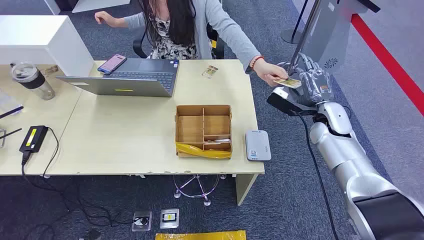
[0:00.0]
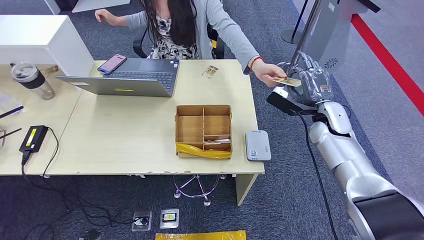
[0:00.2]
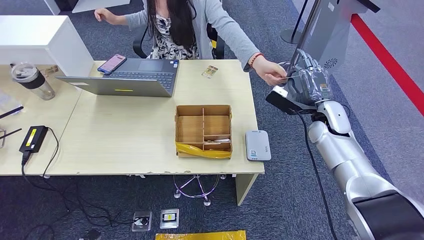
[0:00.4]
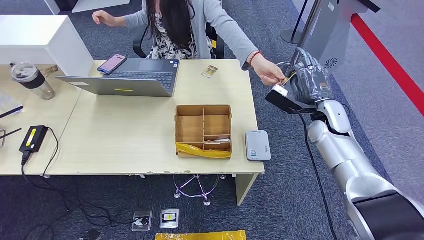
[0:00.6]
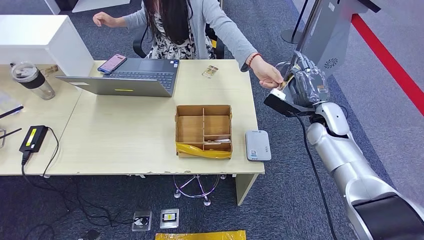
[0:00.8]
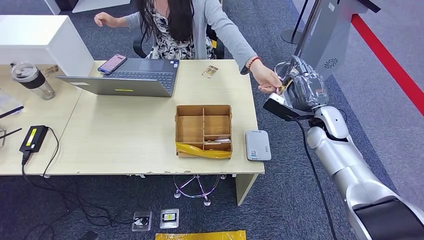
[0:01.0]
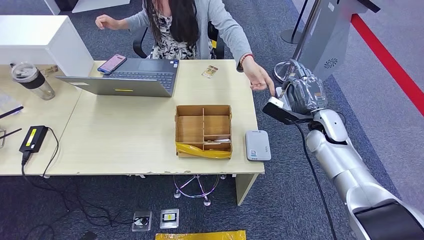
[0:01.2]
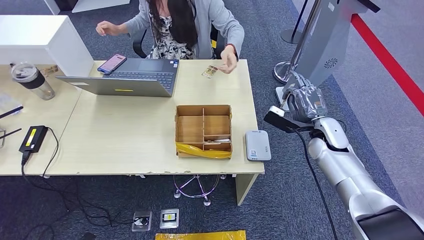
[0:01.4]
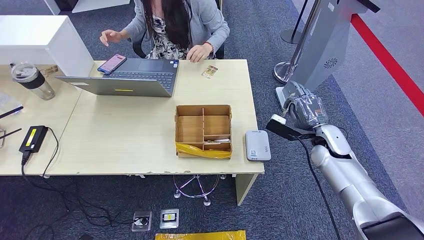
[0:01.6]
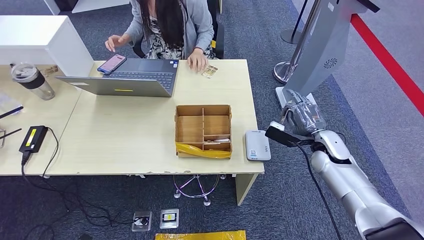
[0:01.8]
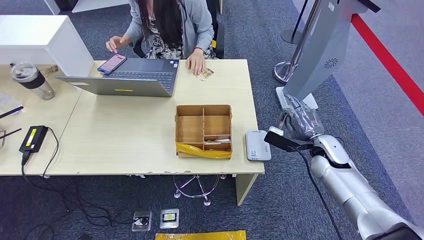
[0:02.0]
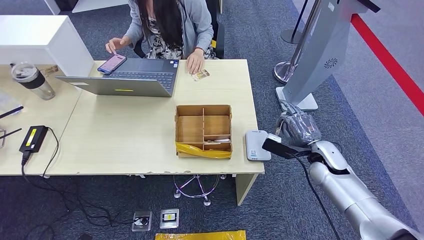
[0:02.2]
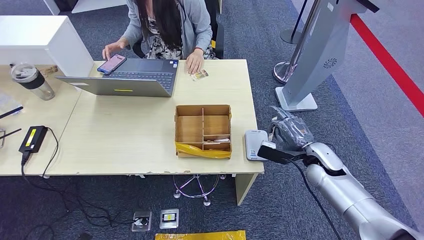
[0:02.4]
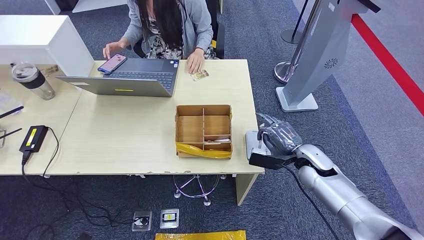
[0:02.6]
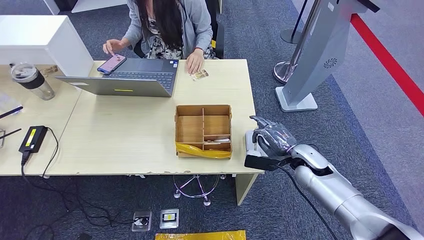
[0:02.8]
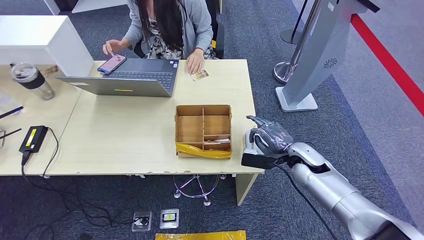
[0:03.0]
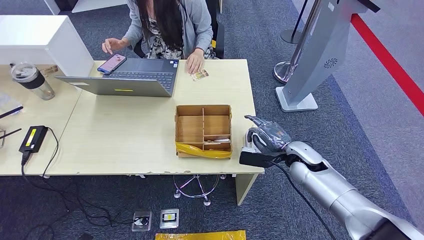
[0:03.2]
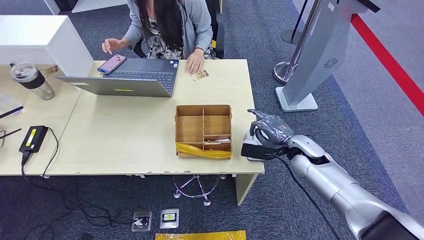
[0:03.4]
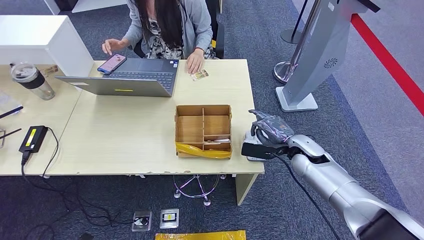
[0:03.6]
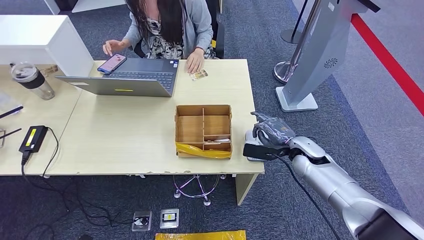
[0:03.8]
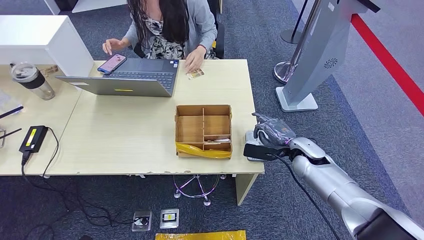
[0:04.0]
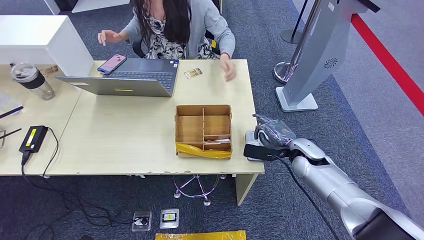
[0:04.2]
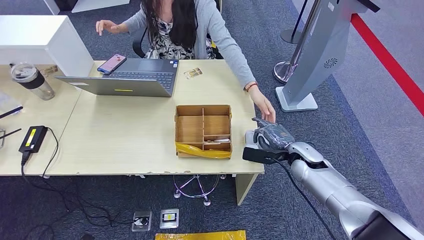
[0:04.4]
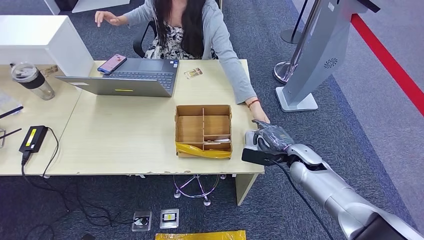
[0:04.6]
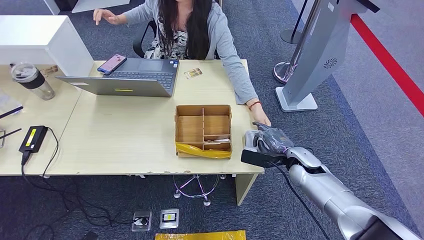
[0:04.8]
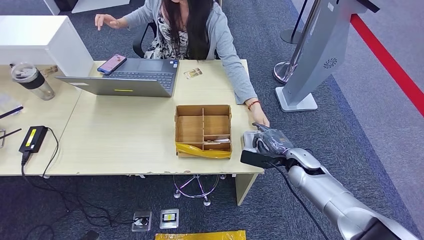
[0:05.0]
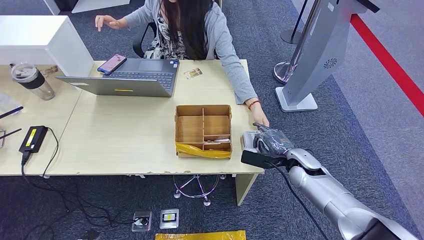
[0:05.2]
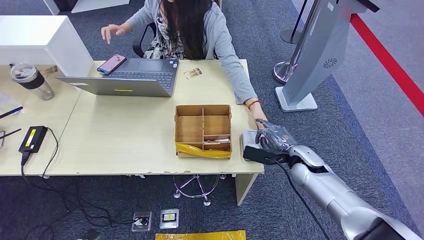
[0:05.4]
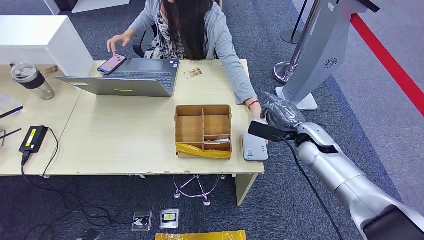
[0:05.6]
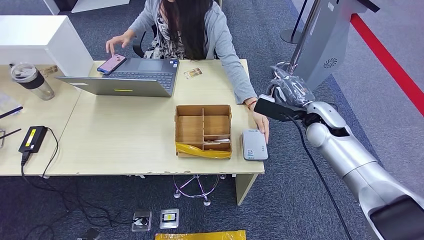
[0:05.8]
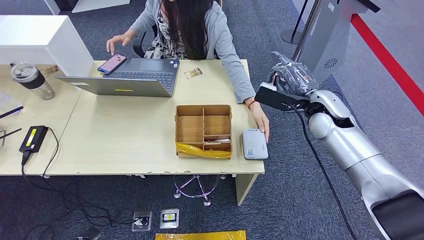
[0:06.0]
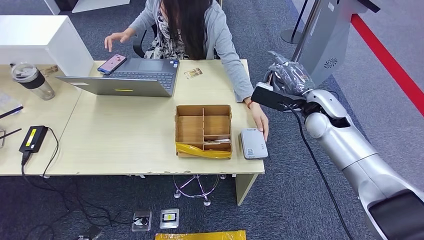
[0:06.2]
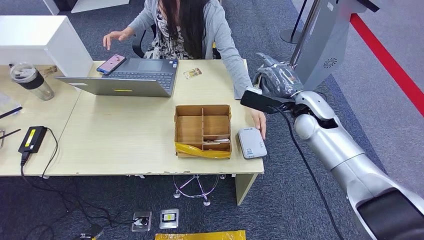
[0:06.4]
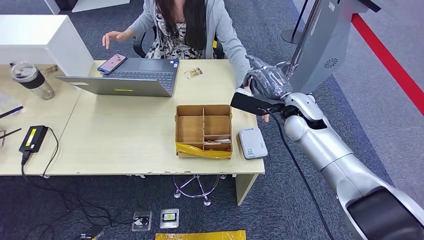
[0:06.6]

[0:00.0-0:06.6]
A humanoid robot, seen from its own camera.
Step, 0:00.0 to 0:06.6: Take the ID card from the person's hand.
0:01.6 to 0:03.2: The right hand shifts about 5 cm to the left.
0:03.2 to 0:05.0: The hands stay close to where they were, moving slightly.
0:05.0 to 0:06.6: The right hand is displaced upward and forward by roughly 15 cm.
